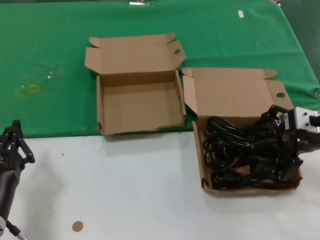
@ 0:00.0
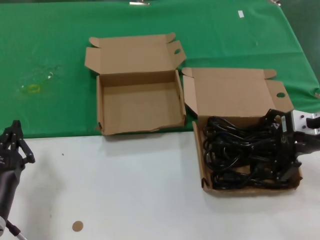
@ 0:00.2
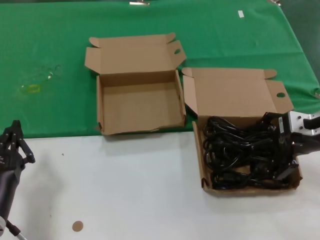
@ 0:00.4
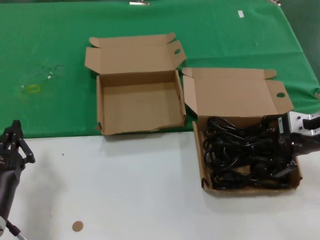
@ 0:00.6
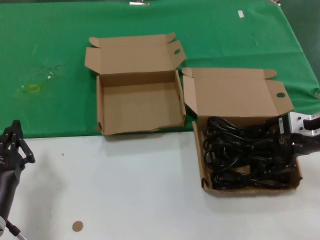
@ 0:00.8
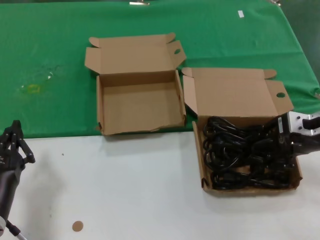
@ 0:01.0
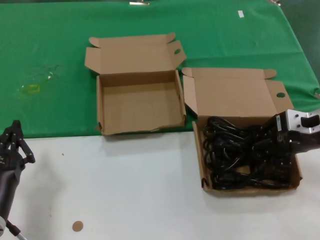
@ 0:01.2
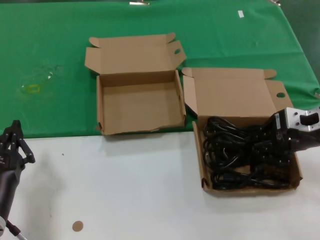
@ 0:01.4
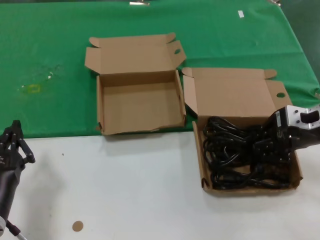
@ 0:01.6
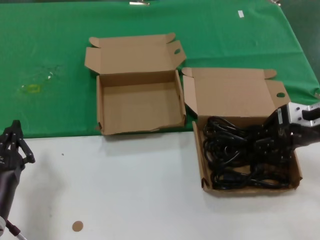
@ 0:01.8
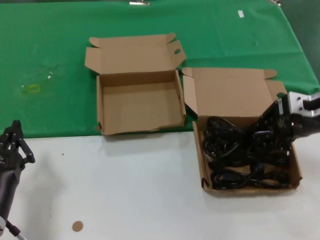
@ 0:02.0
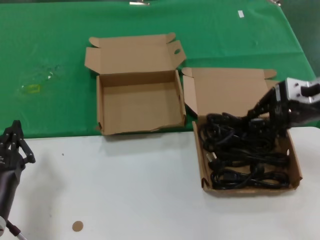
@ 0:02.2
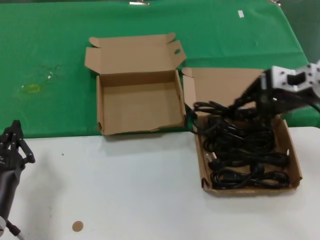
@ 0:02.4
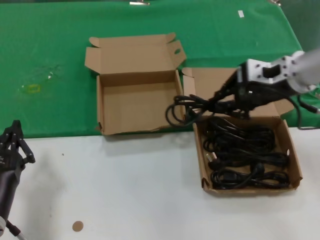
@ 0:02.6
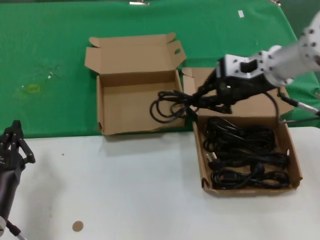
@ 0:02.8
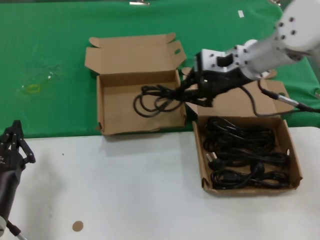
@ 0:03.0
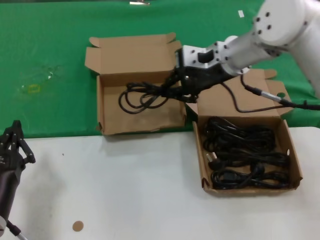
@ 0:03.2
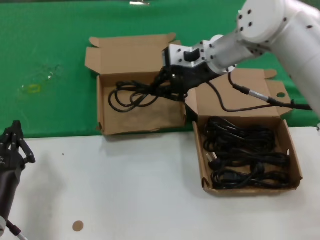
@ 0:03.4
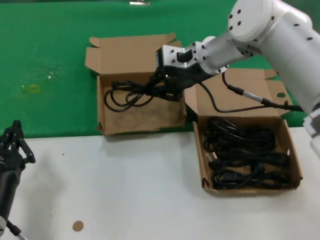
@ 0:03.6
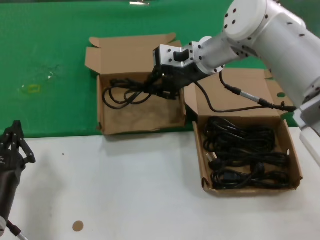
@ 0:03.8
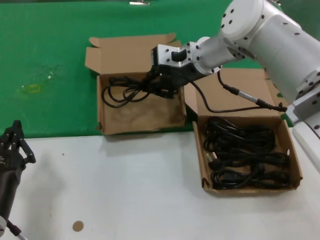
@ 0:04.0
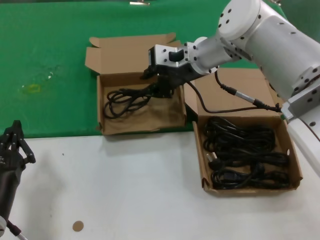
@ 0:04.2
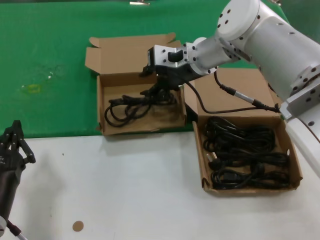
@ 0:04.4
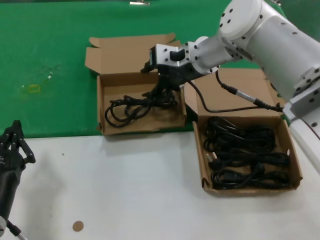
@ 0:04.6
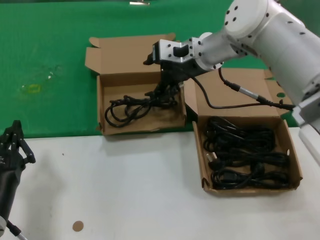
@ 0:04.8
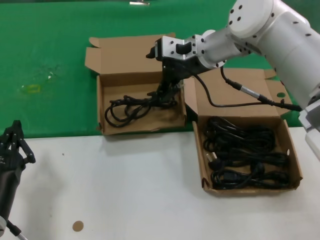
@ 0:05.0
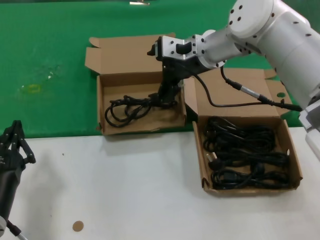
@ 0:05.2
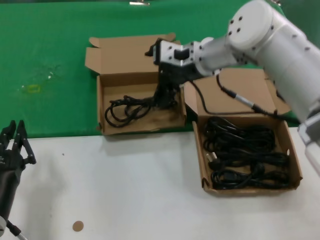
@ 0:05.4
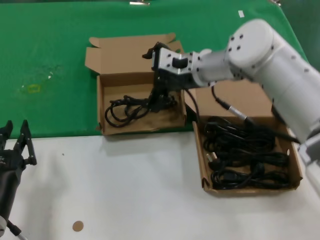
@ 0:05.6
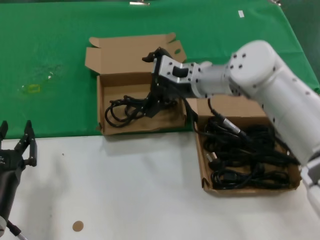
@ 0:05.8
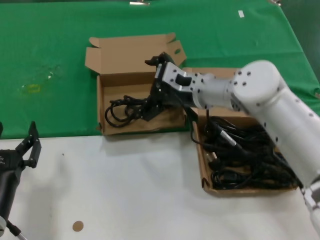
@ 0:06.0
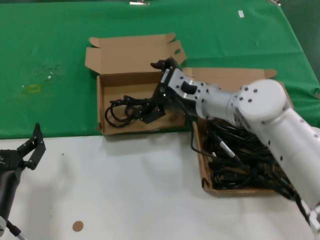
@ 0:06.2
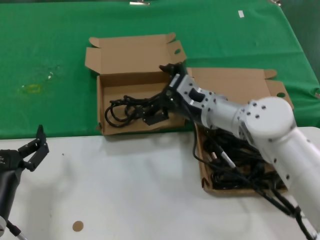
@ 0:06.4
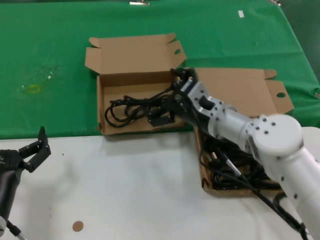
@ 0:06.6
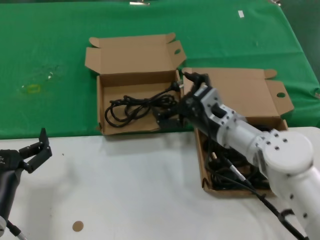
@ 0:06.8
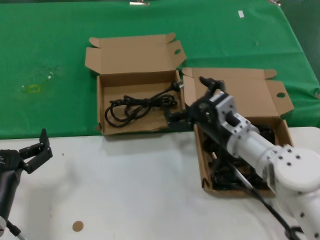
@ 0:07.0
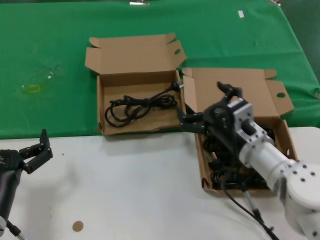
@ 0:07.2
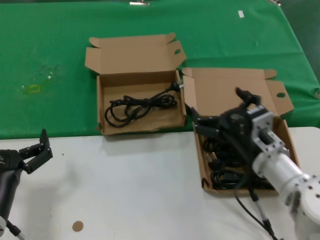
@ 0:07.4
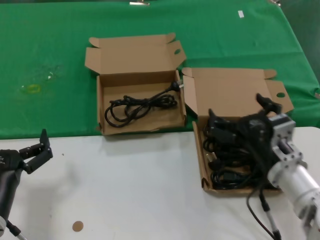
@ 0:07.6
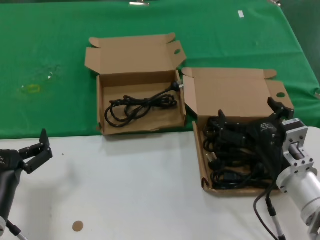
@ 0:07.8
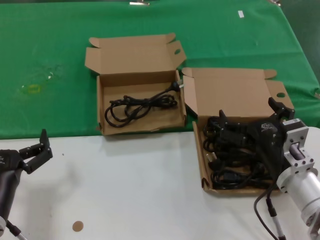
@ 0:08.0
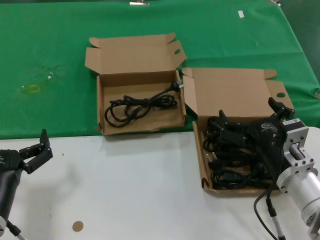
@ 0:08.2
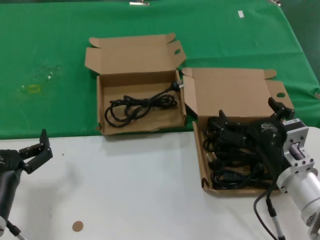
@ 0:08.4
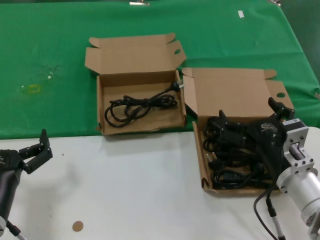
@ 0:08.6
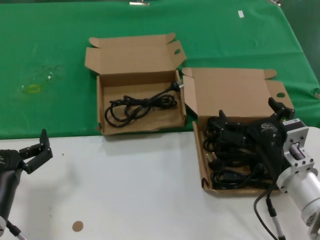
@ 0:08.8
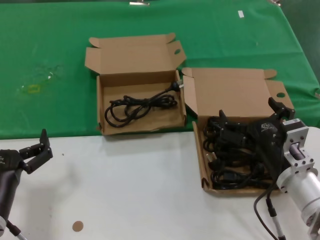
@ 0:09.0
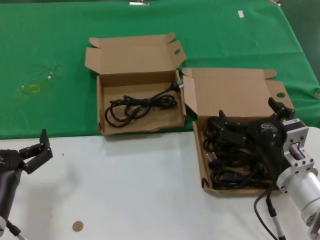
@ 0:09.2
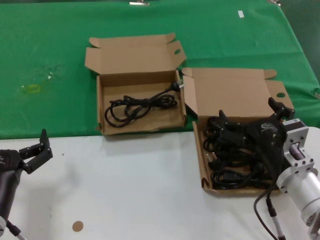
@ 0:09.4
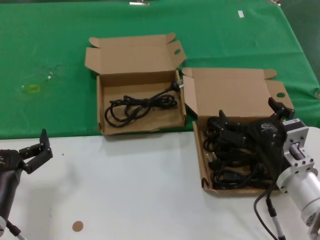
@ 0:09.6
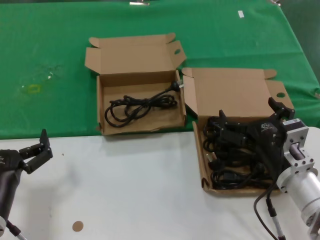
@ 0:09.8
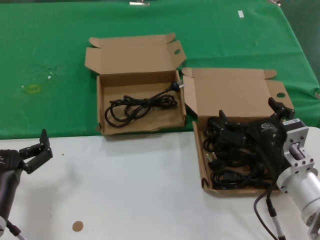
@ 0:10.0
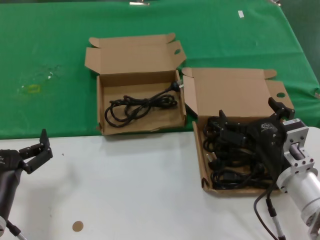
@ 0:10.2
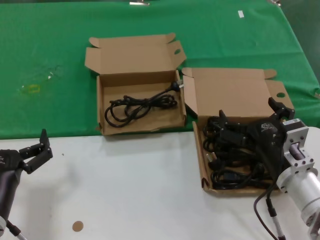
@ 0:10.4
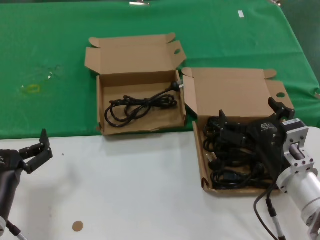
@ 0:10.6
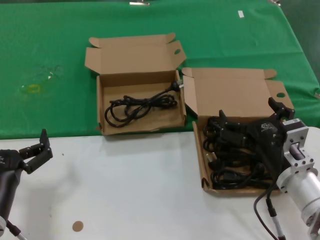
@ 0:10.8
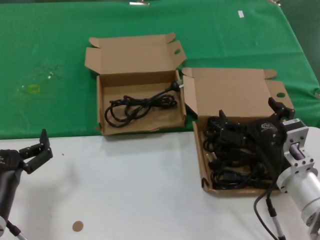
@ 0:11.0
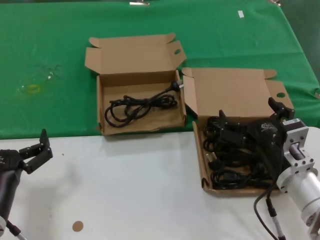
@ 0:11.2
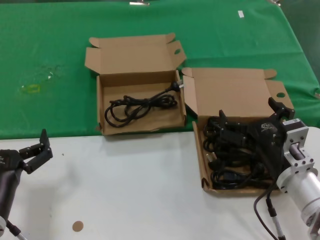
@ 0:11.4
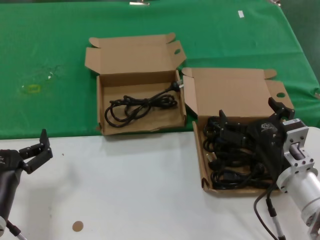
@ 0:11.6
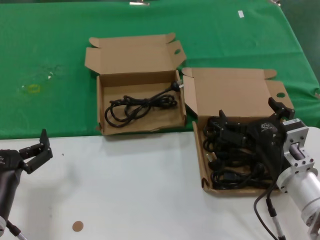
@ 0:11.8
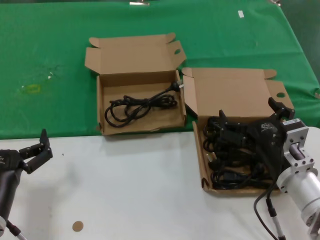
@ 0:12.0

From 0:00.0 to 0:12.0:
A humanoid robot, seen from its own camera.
Task of the whole recording: take the parts from the box containing them and put them into an empty box.
Step, from 0:01.6 to 0:04.4: Place the data cable in the another box.
From 0:00.0 to 0:01.6: The hands move only a little.
From 0:01.6 to 0:03.0: The right hand is displaced to the left, forward and upward by about 20 cm.
From 0:03.0 to 0:04.4: The right hand is displaced to the left and forward by roughly 10 cm.
From 0:04.4 to 0:06.0: The right hand moves downward, roughly 10 cm.
From 0:06.0 to 0:07.6: The right hand moves backward, downward and to the right, roughly 25 cm.
From 0:07.6 to 0:09.0: The hands stay close to where they were, moving slightly.
From 0:09.0 to 0:12.0: Both hands stay put.

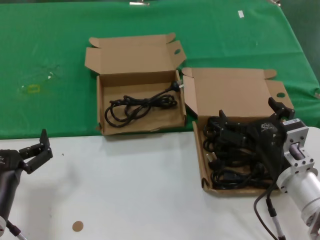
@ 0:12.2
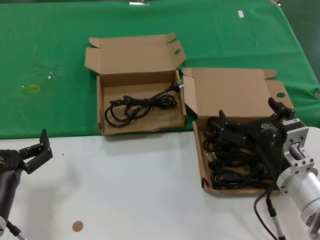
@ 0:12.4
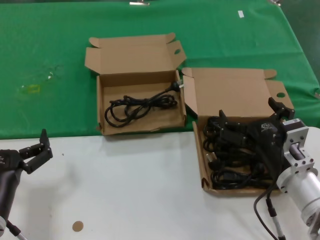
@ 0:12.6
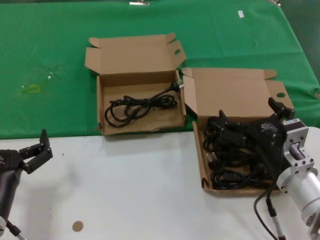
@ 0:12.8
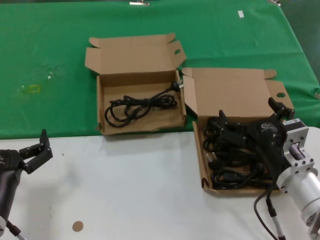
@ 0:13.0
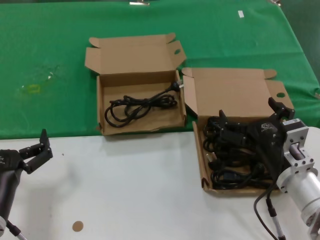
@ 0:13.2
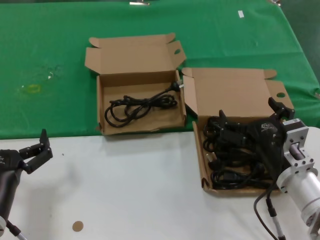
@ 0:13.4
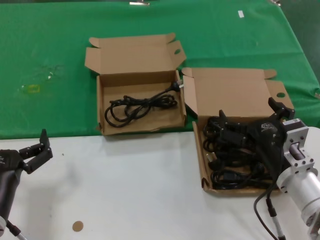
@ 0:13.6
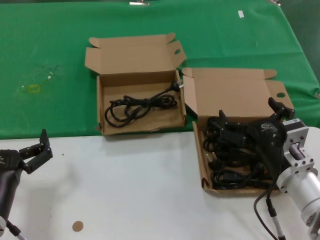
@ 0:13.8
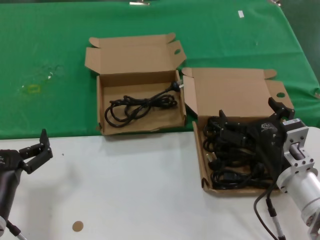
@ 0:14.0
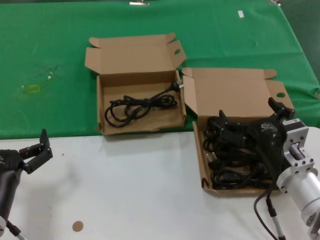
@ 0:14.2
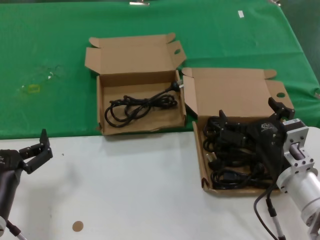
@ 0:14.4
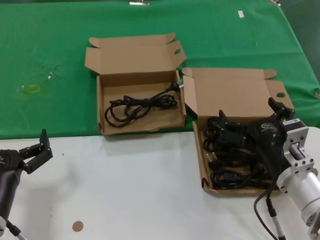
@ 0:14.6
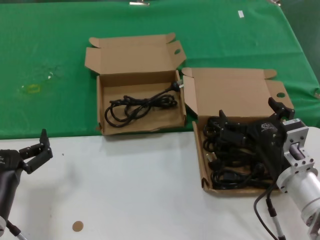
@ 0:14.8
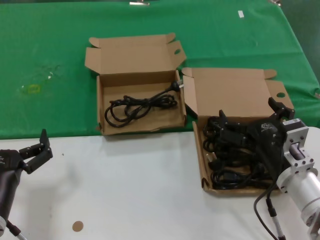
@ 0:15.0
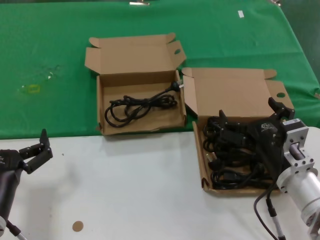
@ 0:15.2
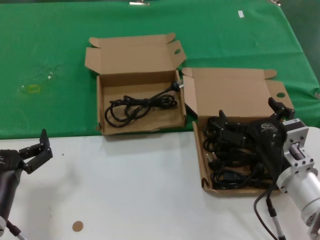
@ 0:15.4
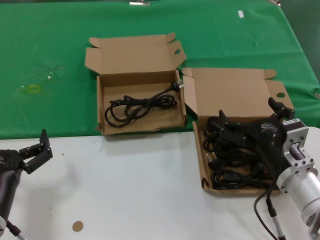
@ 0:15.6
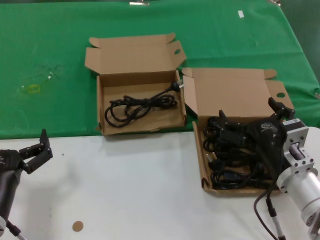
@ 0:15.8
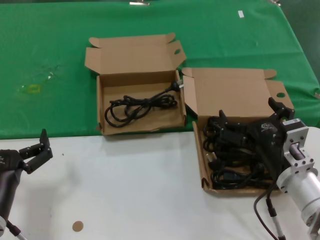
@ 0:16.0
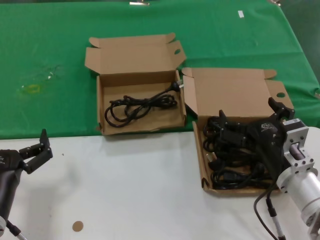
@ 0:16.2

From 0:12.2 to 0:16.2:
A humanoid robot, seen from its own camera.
Task of the whole recording: take the parts from the box containing them and put them into an empty box.
From 0:12.2 to 0:16.2: The two hands keep their place.
